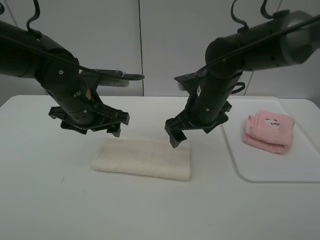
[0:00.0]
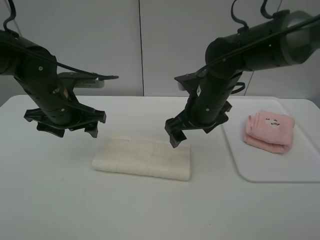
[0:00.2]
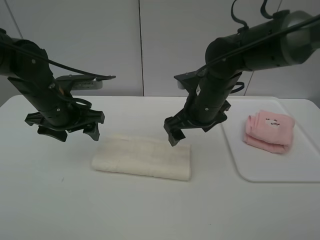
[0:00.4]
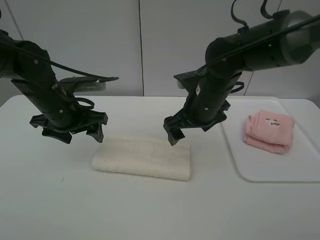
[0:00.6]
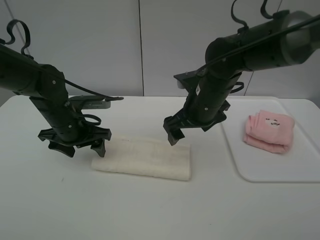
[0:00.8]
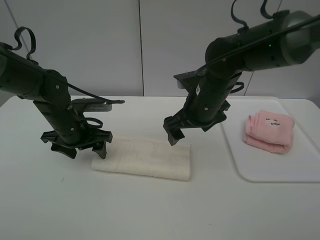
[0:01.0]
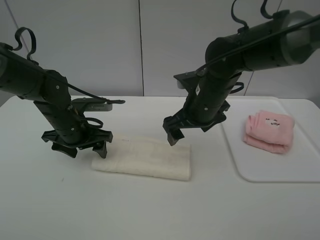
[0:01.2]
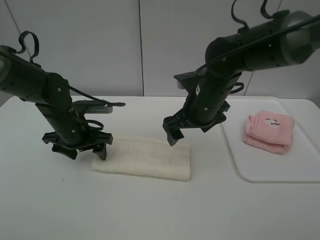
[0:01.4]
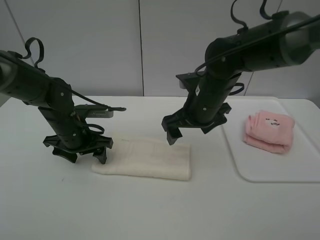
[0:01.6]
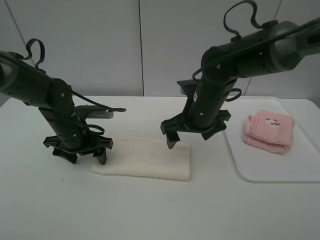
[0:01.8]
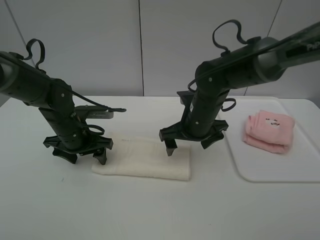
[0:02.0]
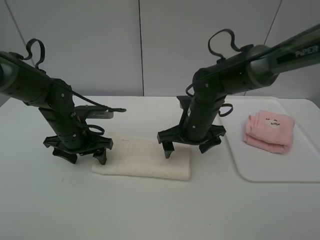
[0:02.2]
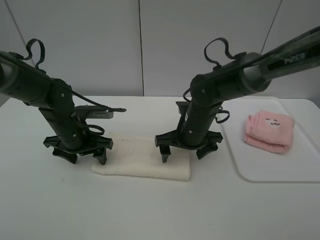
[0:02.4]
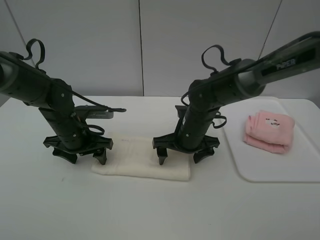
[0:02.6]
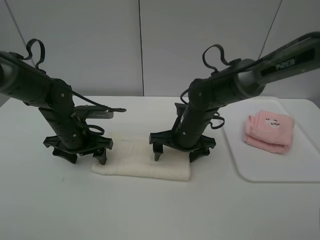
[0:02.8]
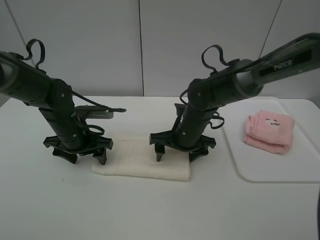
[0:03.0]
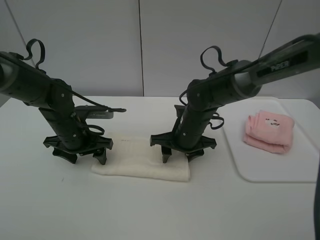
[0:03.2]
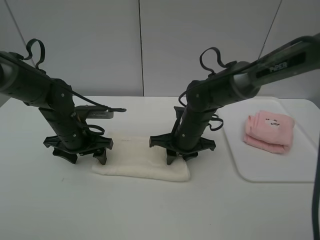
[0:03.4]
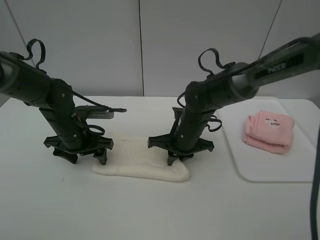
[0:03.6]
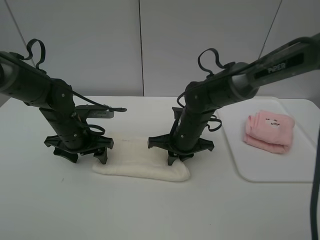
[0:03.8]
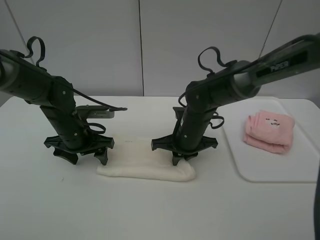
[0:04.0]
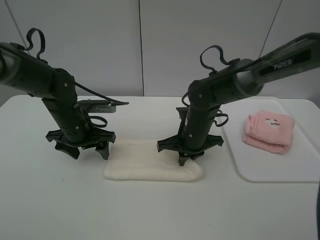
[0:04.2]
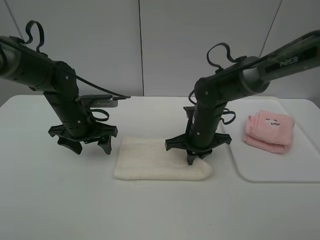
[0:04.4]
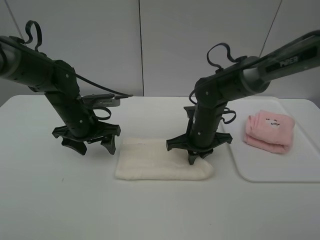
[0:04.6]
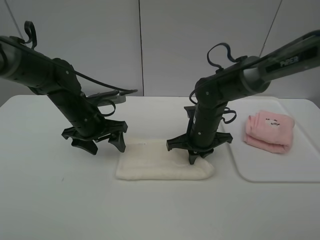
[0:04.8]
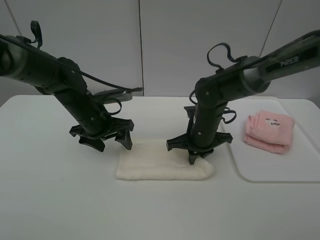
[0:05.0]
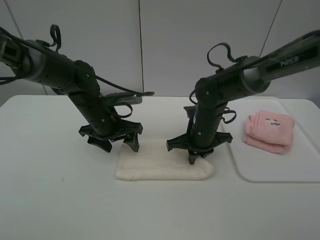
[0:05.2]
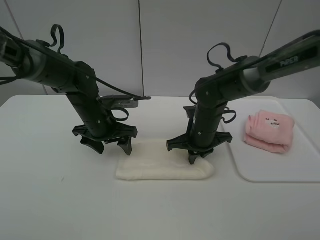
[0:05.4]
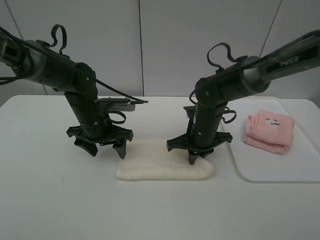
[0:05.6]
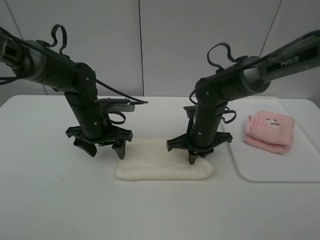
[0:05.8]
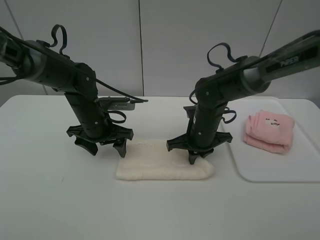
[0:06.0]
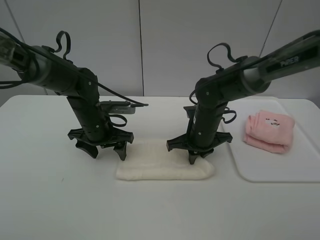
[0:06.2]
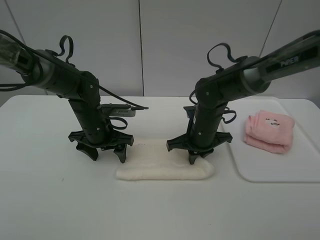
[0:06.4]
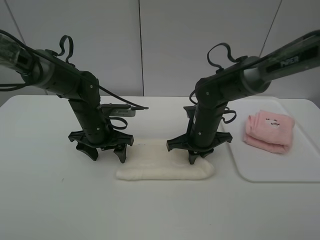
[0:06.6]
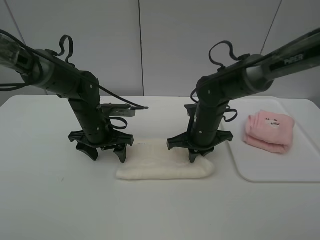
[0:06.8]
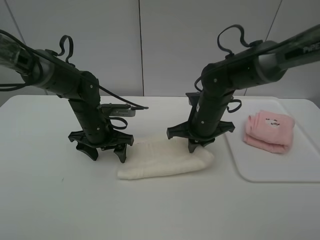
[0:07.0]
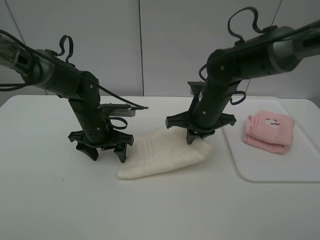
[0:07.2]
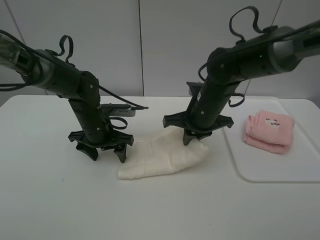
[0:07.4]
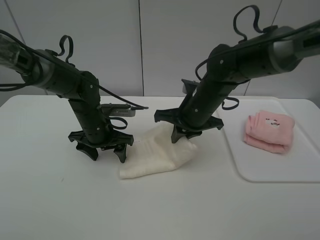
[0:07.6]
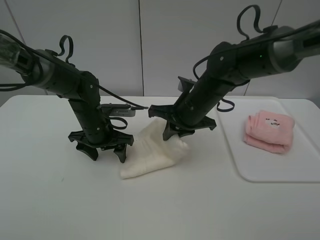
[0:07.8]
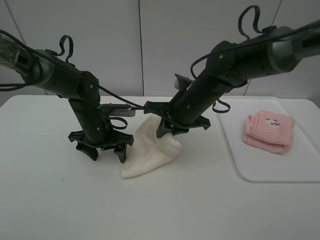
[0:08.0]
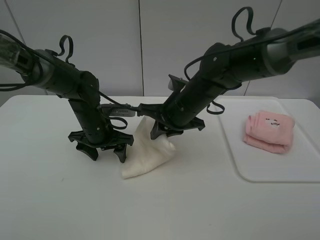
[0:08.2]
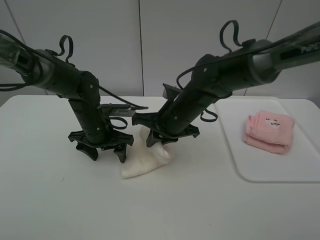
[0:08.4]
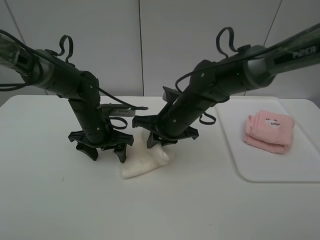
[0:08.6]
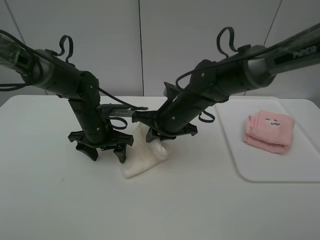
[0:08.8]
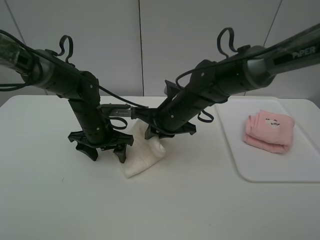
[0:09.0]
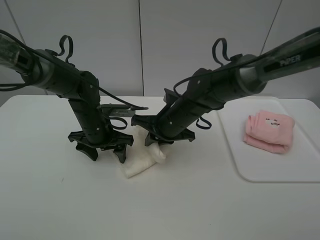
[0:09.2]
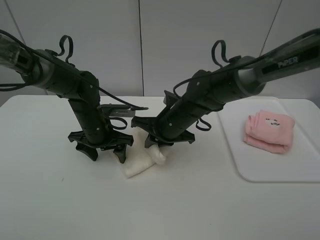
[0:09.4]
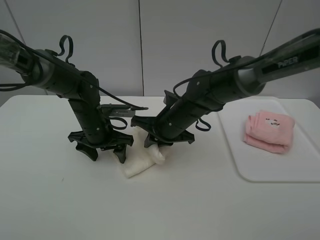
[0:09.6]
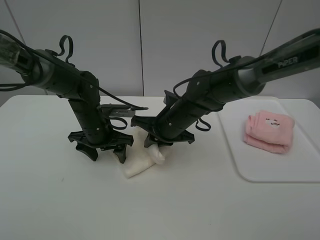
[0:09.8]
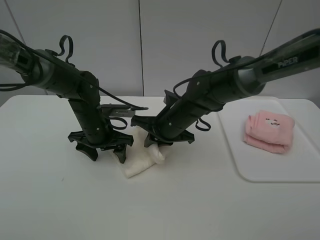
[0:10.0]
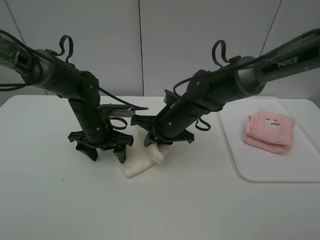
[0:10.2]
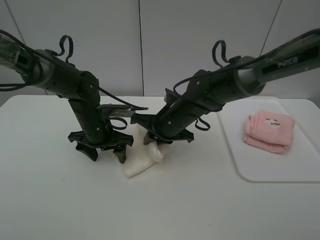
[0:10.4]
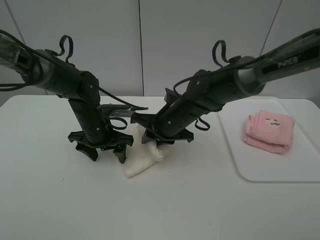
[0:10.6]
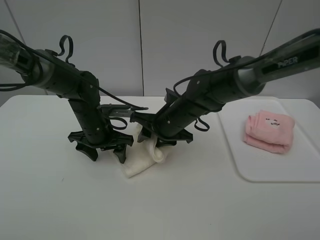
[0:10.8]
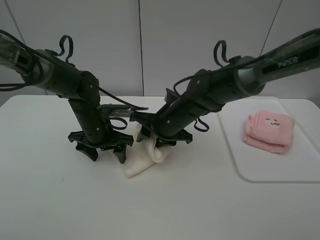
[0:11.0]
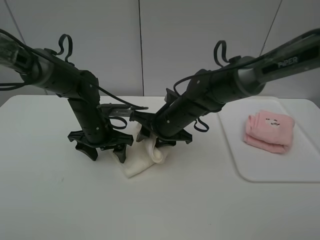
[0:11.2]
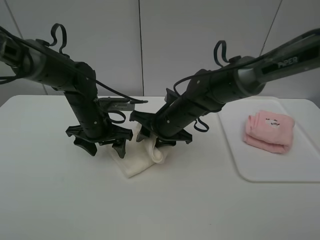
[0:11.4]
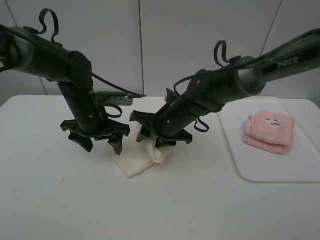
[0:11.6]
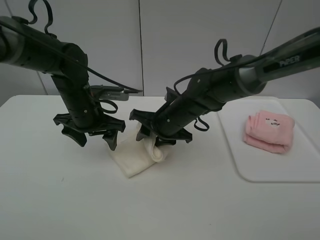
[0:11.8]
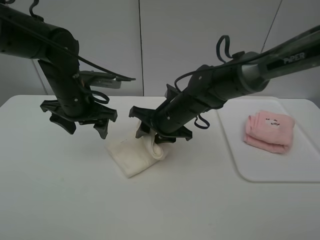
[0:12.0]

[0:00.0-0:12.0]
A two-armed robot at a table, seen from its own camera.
Task of the whole recording: fold one of the towels by two grippers and place it on the tray,then fold another towel by two grippers and place it on the folded towel.
Step, 0:01.6 to 0:03.6: Grasp the white towel with the right gripper.
0:00.0 to 0:01.6: The left gripper goes some 10 cm downward.
0:01.6 to 0:03.0: The right gripper goes about 10 cm downward.
0:03.0 to 0:04.4: The right gripper closes its fingers.
0:04.4 to 0:06.0: The grippers stay close to where they were, moving slightly.
0:06.0 to 0:07.6: The right gripper goes some 5 cm upward.
0:07.6 to 0:10.4: The grippers make only small movements.
0:10.4 to 0:12.0: The right gripper opens, while the left gripper is displaced upward by some 10 cm.

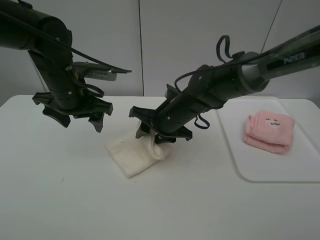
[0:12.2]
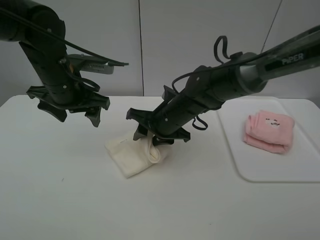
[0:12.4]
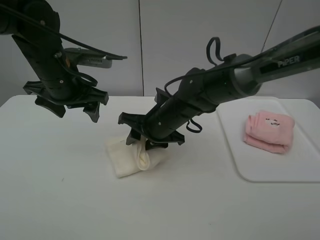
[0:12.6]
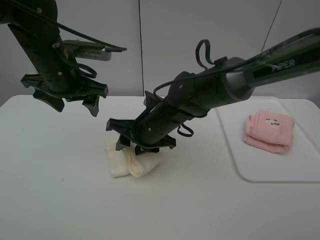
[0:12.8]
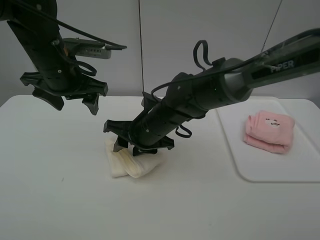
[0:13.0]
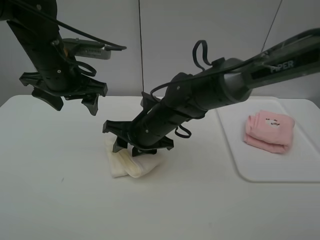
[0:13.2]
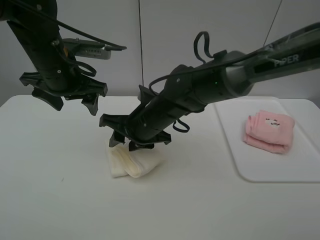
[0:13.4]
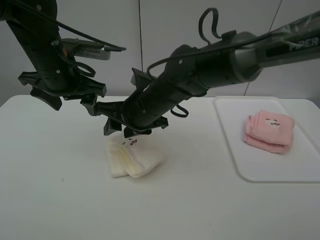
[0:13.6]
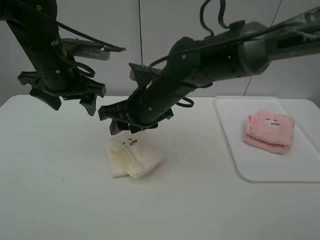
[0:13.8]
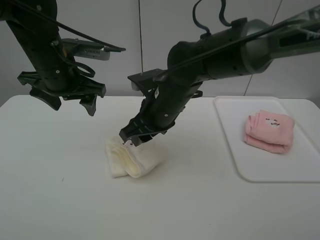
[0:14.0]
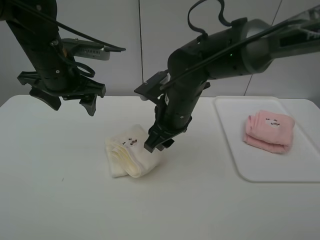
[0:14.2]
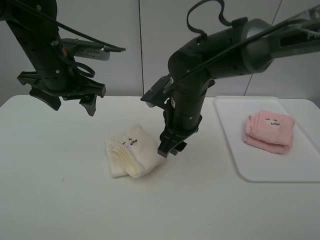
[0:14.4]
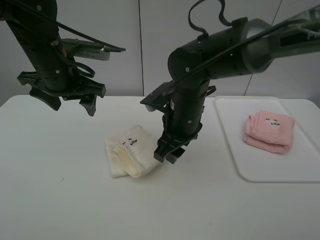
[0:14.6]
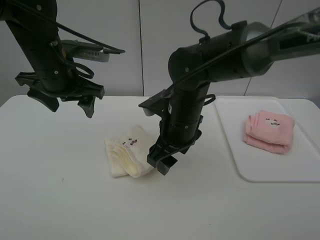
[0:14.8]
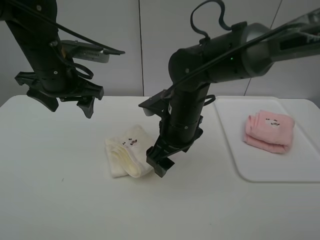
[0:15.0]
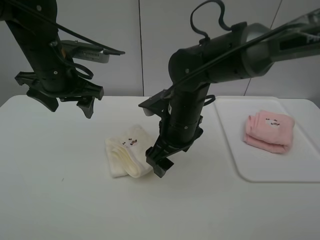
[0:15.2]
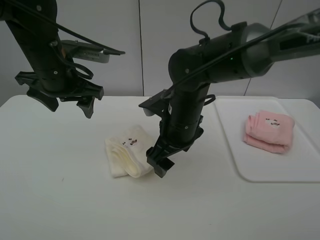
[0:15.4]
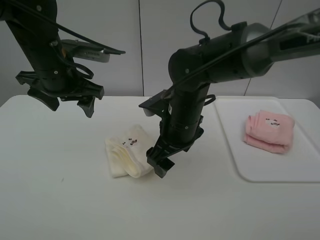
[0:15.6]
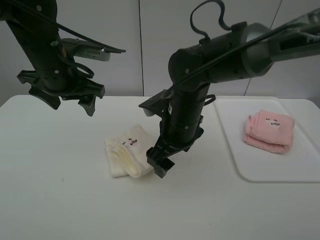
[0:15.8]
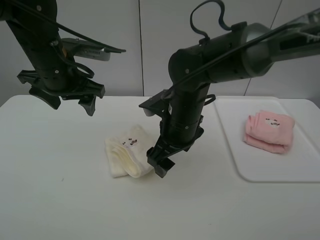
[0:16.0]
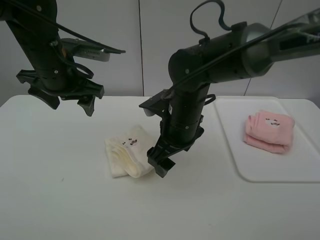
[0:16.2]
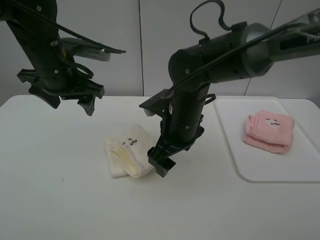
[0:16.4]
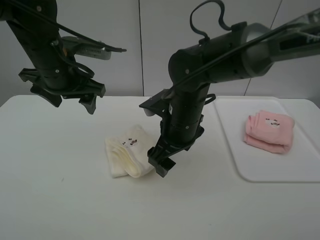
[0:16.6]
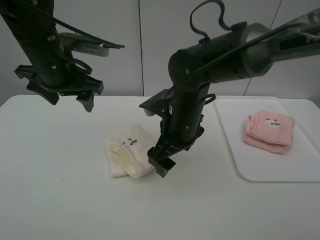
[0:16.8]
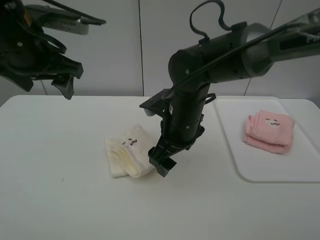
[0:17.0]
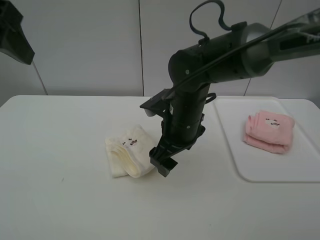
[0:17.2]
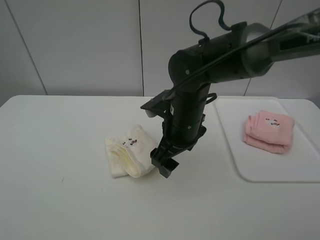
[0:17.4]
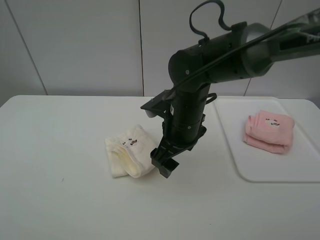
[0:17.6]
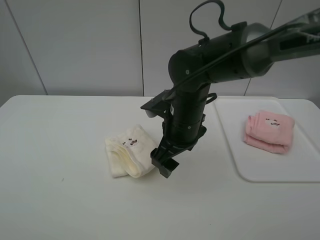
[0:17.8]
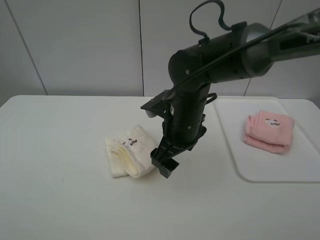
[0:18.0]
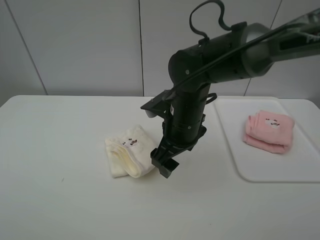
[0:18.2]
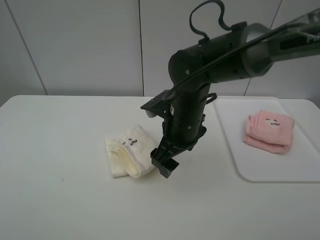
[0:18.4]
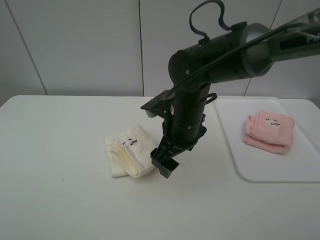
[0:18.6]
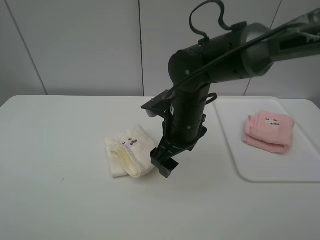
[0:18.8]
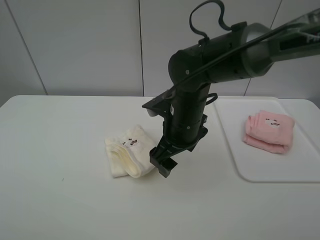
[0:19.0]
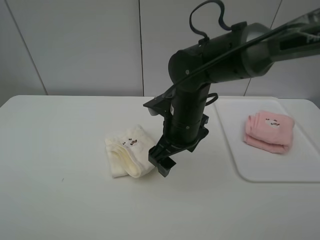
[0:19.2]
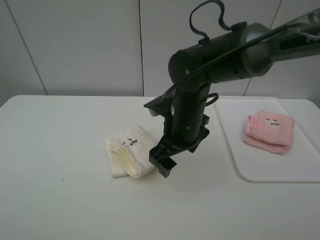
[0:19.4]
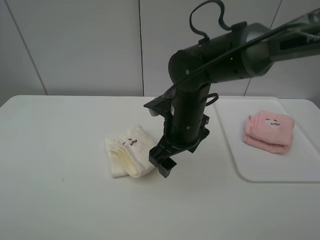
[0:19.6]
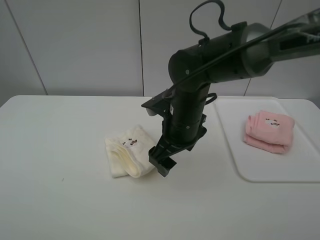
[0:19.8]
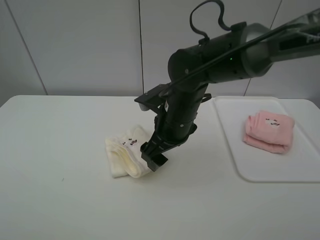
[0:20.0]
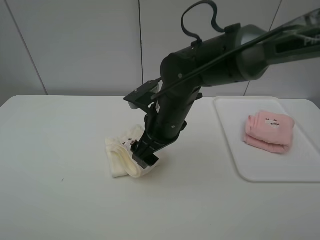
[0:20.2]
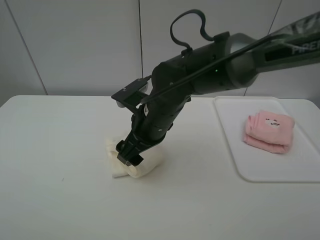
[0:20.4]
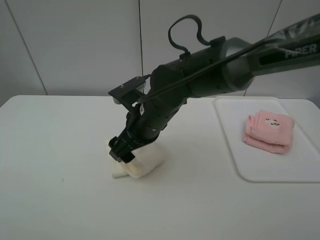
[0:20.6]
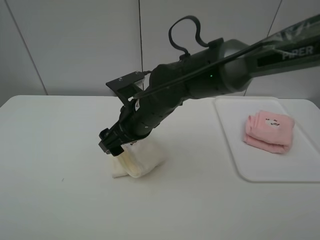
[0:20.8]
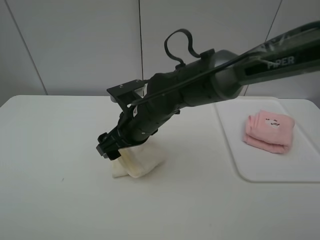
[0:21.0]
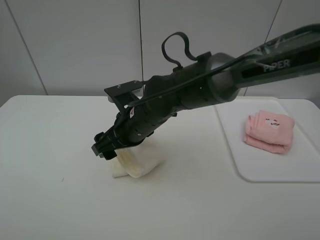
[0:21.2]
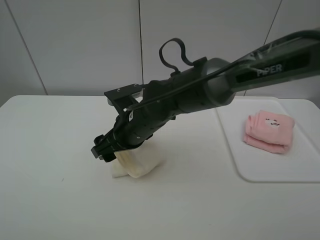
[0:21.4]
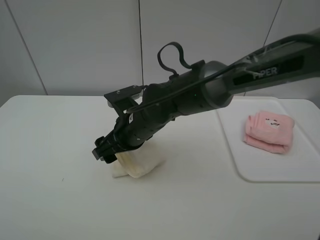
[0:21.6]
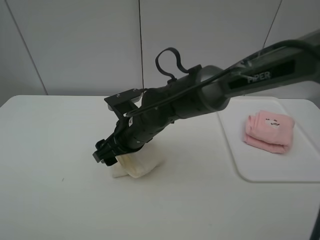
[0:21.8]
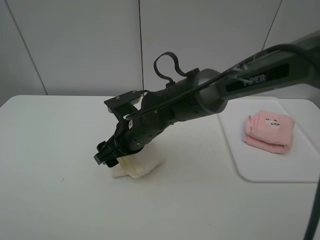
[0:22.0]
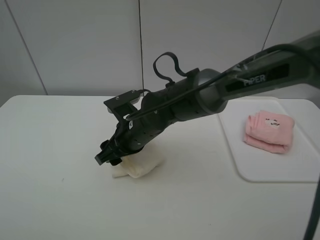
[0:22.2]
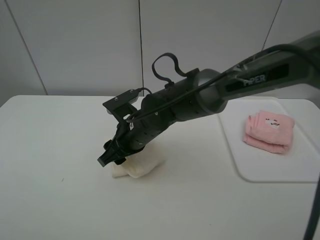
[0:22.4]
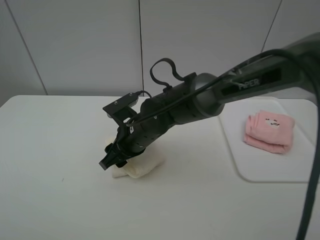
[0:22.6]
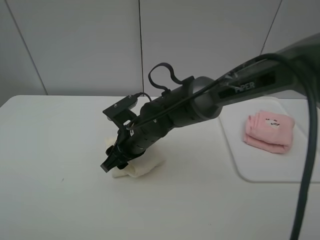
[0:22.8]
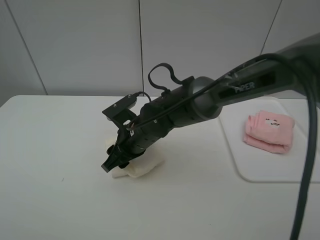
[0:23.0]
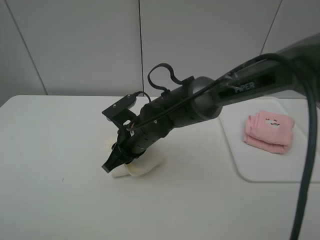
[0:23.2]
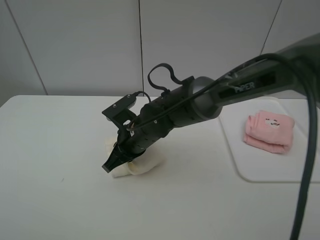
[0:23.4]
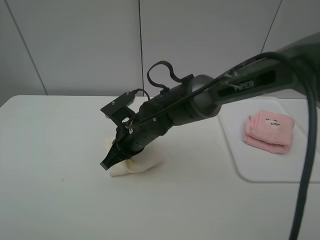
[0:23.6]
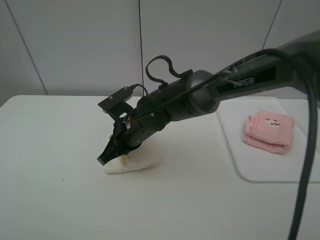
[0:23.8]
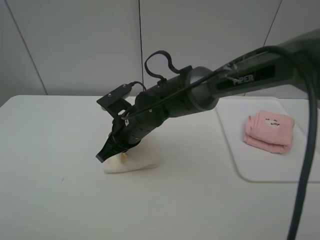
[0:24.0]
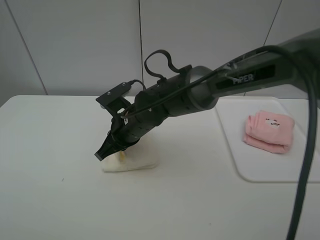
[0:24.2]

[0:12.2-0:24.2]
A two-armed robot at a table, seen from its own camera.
Task of the whole recording: fold one of the towels by two grippers and place it on the tray,then fold another towel by two grippers and place it on the folded towel.
0:12.2 to 0:13.8: The right gripper heads upward, covering approximately 5 cm.
0:13.8 to 0:15.2: The right gripper changes place by roughly 5 cm, and opens its fingers.
0:15.2 to 0:16.6: Both grippers stay put.
0:16.6 to 0:18.2: The left gripper goes roughly 35 cm backward and to the left.
0:19.8 to 0:21.2: The right gripper shifts about 10 cm to the left.
0:21.2 to 0:22.6: The grippers move only a little.
0:22.6 to 0:24.2: The right gripper closes its fingers.
